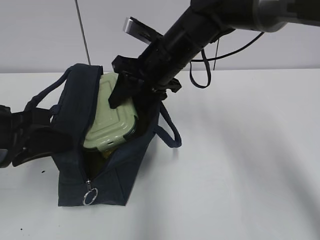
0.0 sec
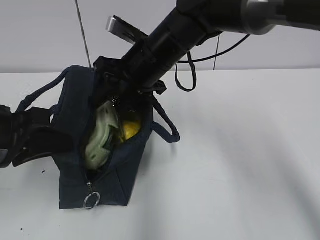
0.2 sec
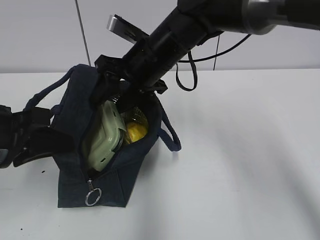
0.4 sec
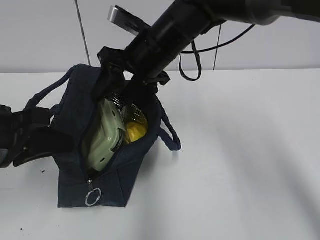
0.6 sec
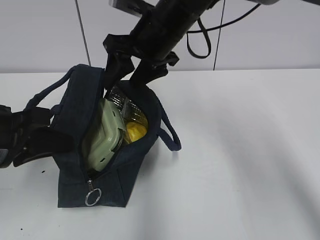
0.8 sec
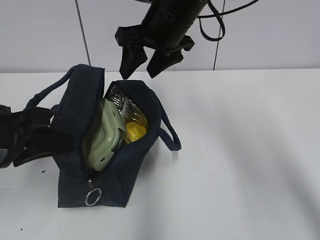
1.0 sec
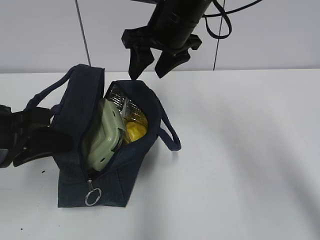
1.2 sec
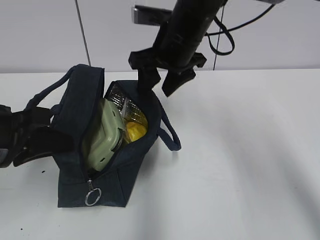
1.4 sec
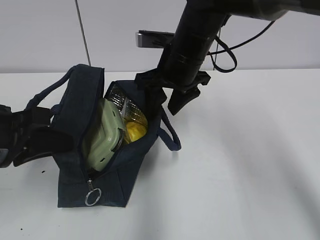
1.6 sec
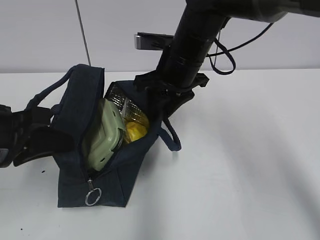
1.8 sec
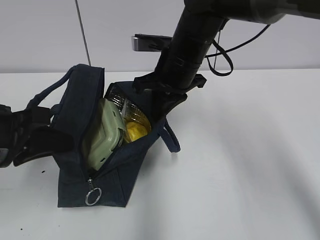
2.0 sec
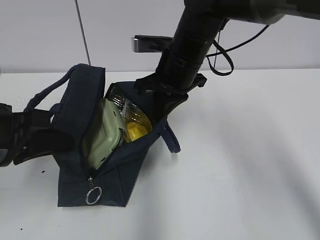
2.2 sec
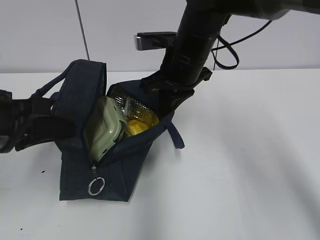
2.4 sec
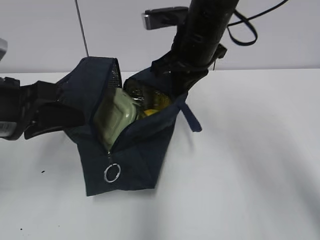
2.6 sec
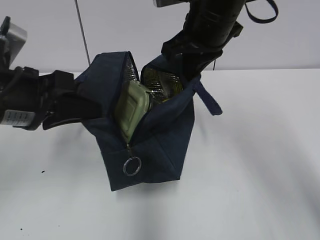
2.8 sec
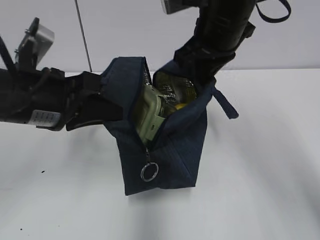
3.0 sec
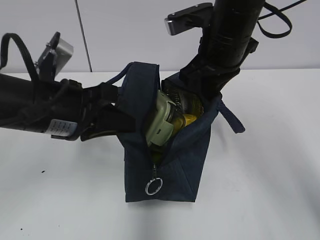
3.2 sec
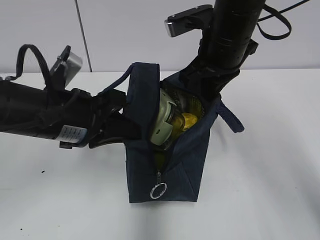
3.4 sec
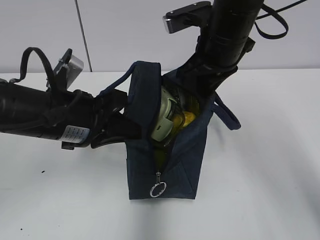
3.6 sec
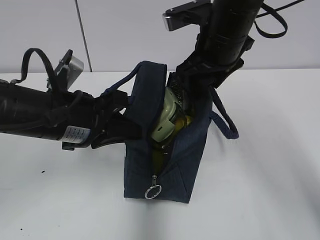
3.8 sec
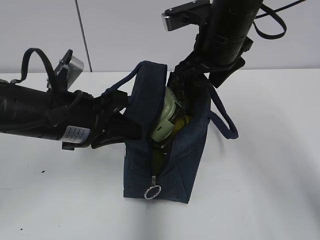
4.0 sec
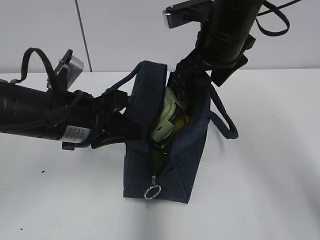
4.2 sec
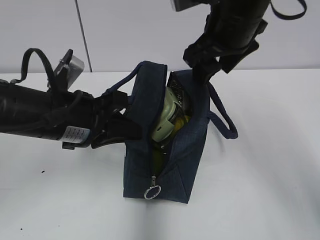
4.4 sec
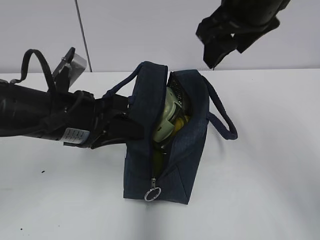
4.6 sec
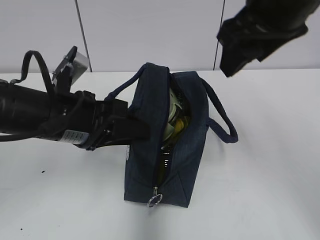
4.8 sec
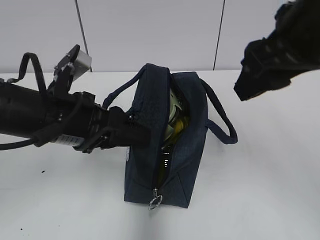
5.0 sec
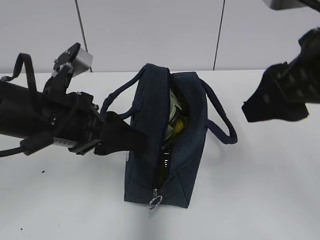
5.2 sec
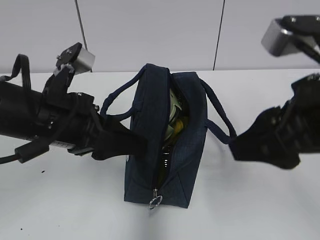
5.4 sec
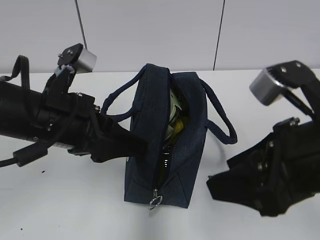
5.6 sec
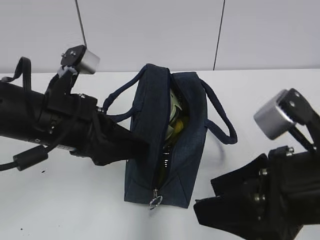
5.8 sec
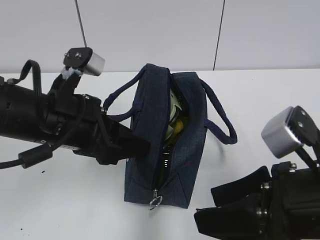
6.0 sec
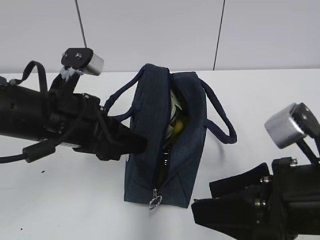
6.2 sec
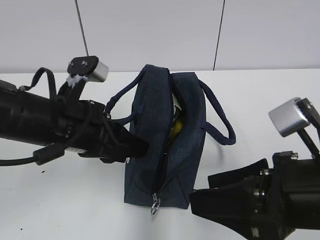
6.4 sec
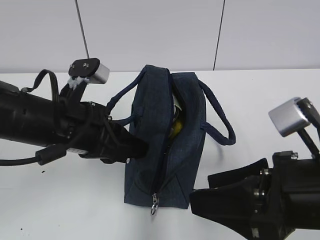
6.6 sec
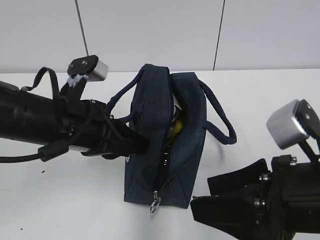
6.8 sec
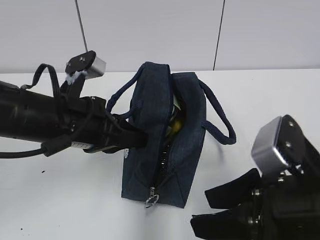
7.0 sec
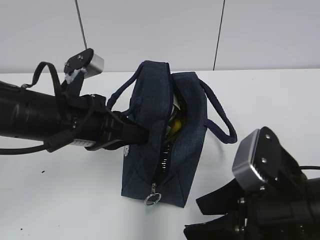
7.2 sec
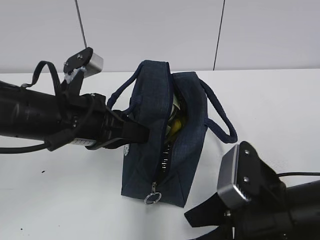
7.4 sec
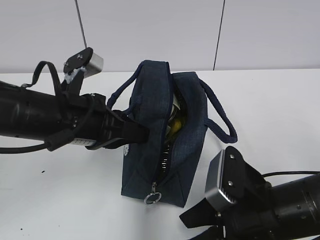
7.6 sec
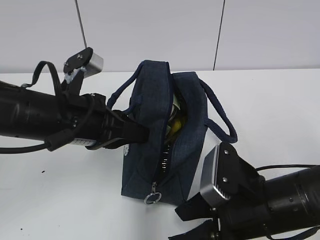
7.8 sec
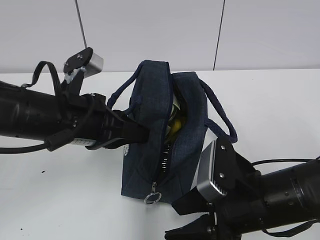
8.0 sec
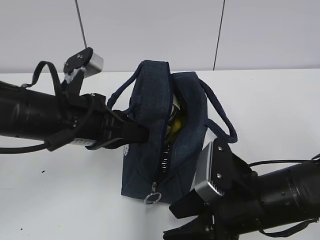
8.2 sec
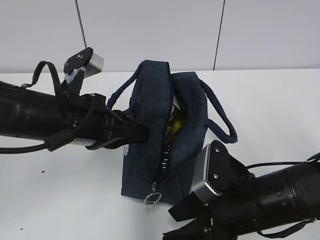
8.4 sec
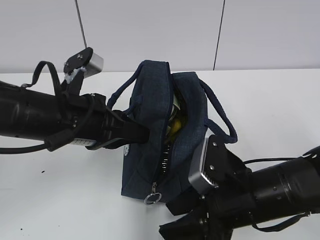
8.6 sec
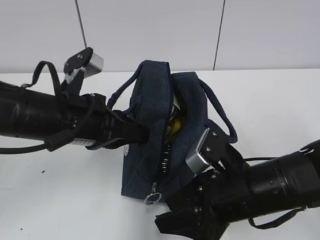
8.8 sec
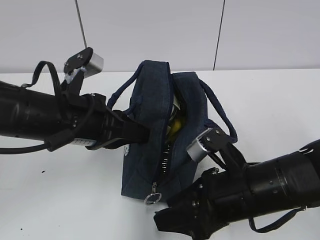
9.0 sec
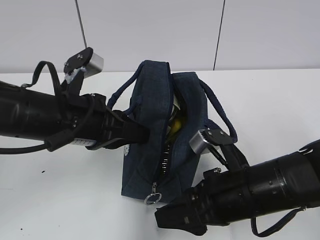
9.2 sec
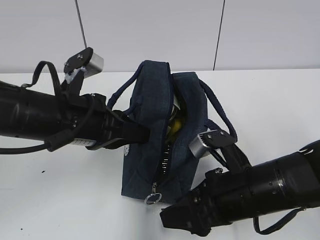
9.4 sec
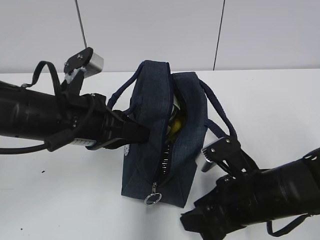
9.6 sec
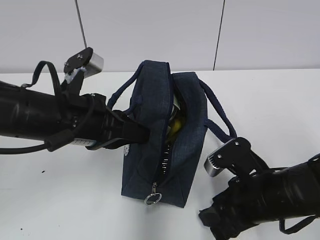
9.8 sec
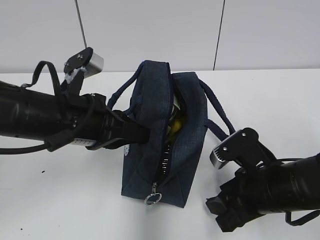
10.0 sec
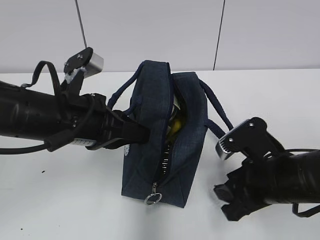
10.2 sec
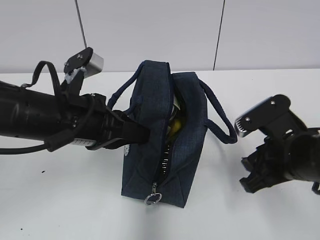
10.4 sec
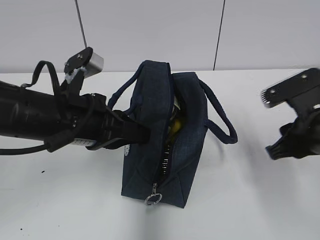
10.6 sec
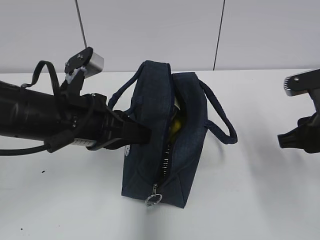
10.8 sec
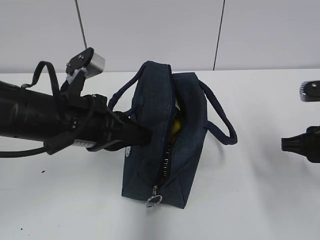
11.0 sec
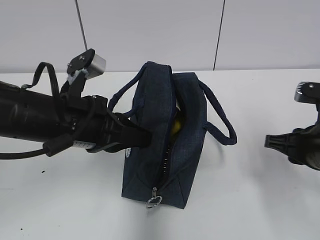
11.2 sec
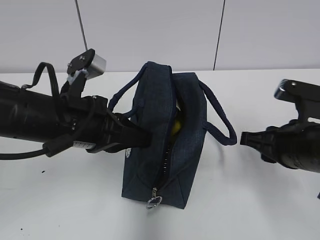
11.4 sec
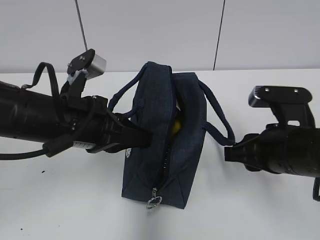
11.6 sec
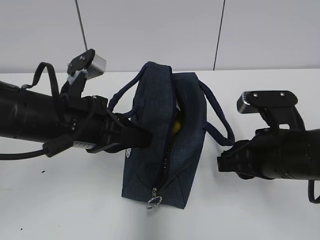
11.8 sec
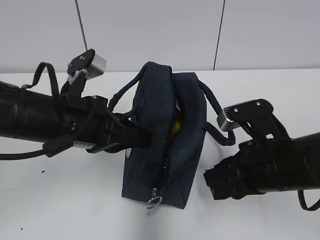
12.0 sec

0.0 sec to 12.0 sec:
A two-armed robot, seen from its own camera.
Step, 0.6 sec to 2.2 sec: Grab the lunch bag with your right hand.
Step, 2.4 sec to 3.6 sec: Move the lunch bag to the right.
1.6 sec to 3.0 sec: The right gripper moves upward, about 5 cm, and closes its fingers. The left gripper goes approximately 5 cm to the right.
3.0 sec to 4.4 sec: The right gripper opens up.
4.4 sec to 6.0 sec: The right gripper is displaced backward and downward by about 25 cm, while the left gripper opens.
6.0 sec to 7.6 sec: The left gripper closes up; the right gripper goes roughly 10 cm downward.
9.0 sec to 10.4 sec: The right gripper is displaced to the right by roughly 5 cm.

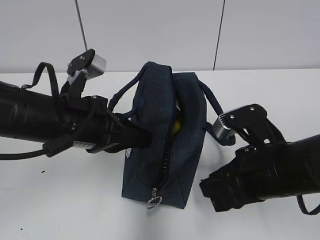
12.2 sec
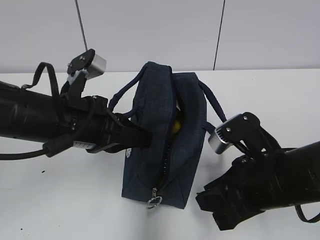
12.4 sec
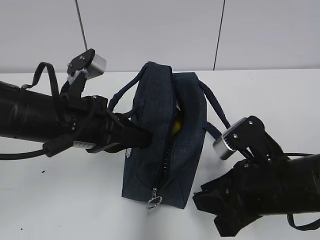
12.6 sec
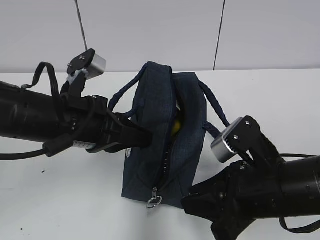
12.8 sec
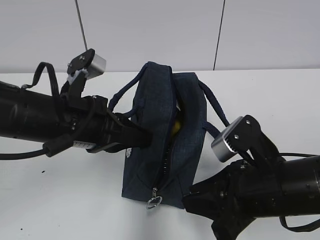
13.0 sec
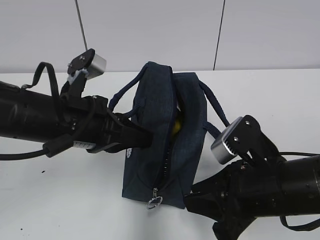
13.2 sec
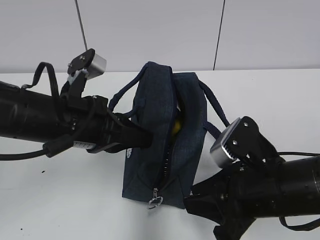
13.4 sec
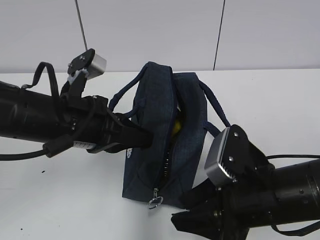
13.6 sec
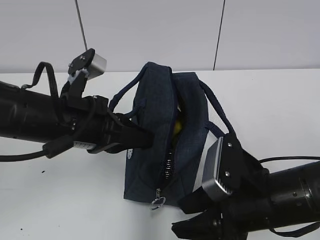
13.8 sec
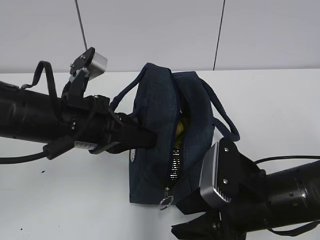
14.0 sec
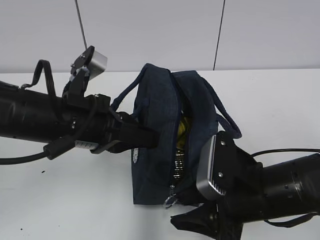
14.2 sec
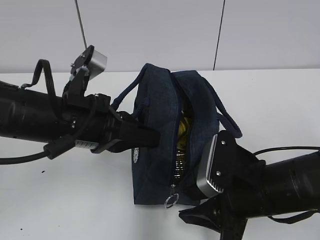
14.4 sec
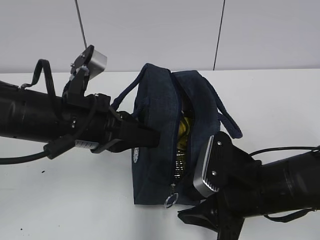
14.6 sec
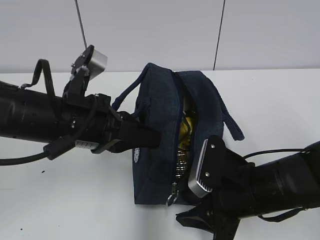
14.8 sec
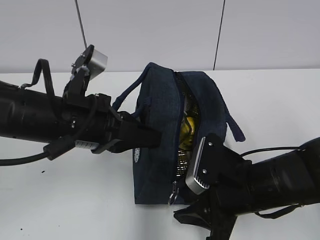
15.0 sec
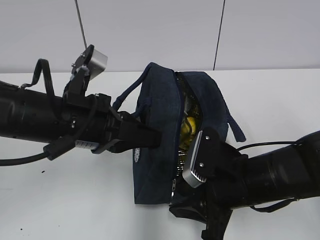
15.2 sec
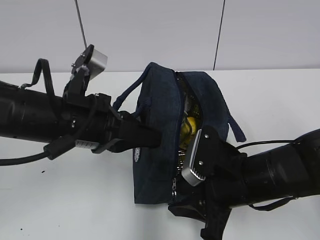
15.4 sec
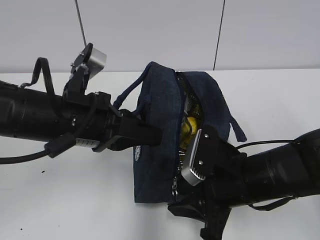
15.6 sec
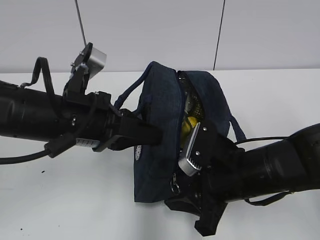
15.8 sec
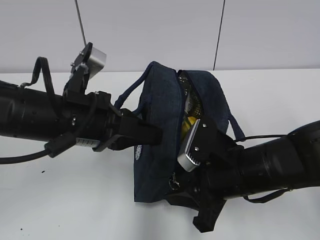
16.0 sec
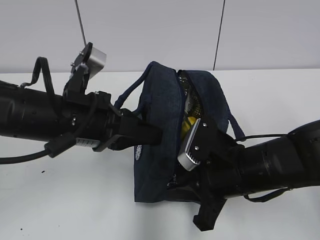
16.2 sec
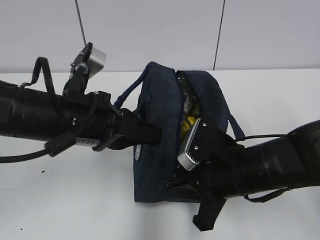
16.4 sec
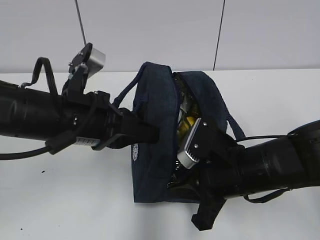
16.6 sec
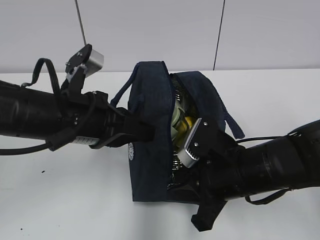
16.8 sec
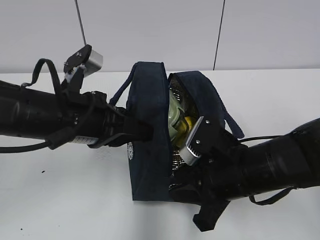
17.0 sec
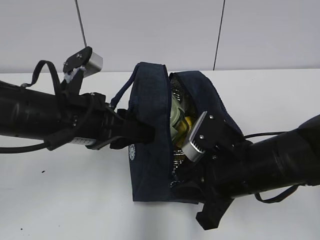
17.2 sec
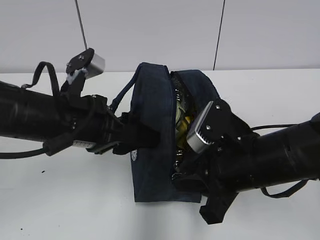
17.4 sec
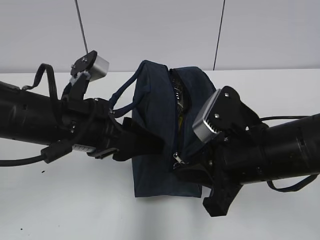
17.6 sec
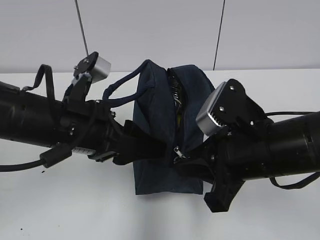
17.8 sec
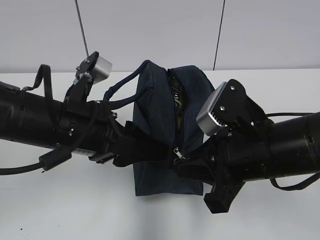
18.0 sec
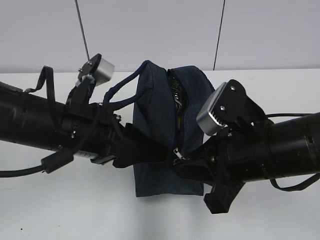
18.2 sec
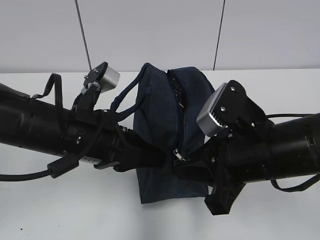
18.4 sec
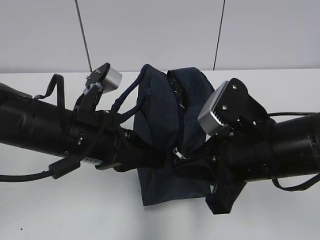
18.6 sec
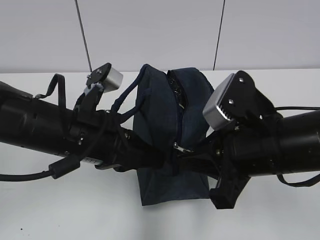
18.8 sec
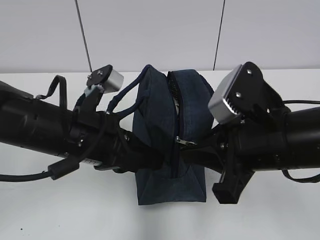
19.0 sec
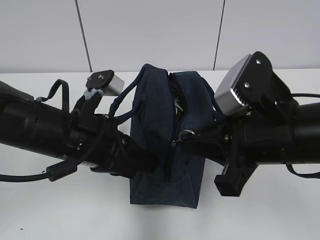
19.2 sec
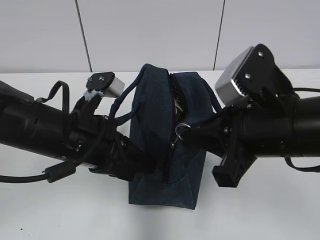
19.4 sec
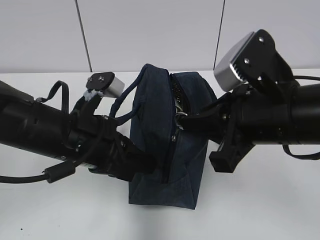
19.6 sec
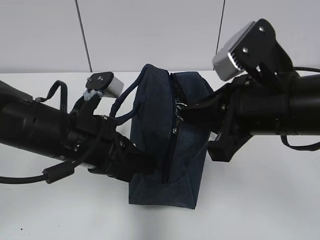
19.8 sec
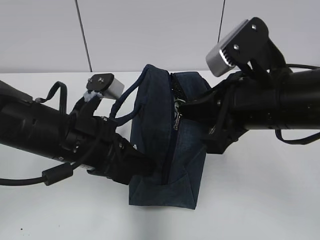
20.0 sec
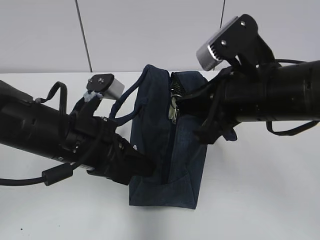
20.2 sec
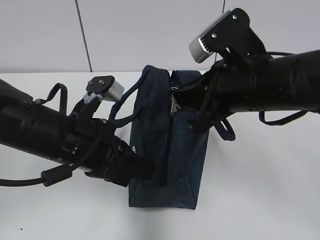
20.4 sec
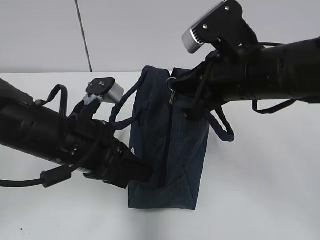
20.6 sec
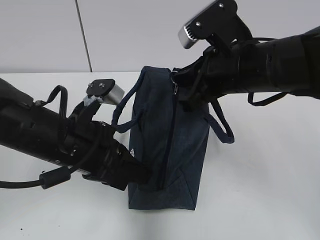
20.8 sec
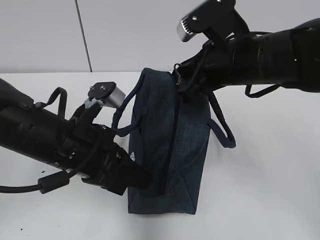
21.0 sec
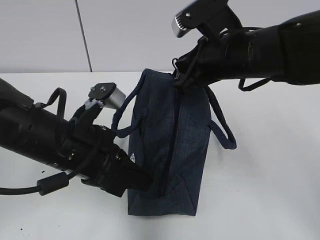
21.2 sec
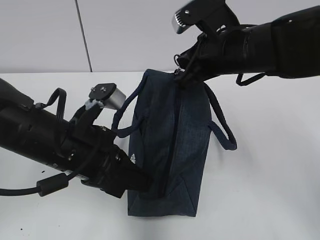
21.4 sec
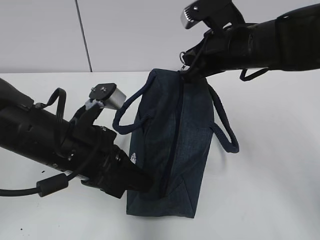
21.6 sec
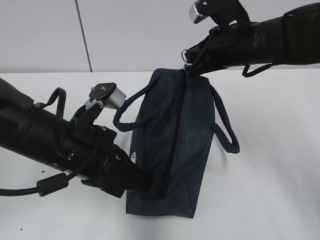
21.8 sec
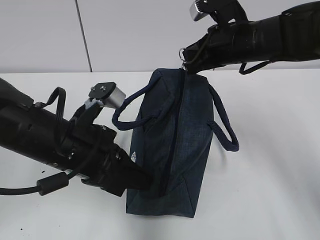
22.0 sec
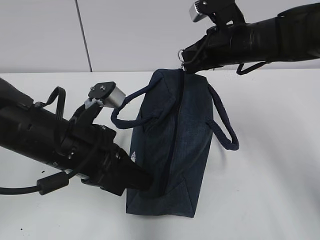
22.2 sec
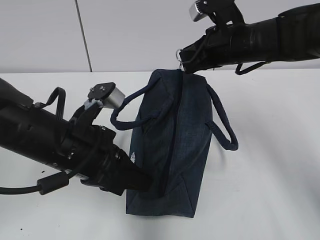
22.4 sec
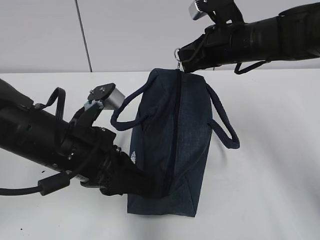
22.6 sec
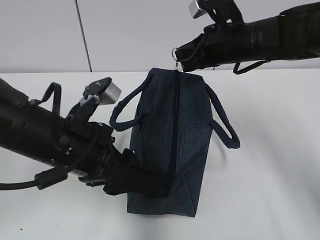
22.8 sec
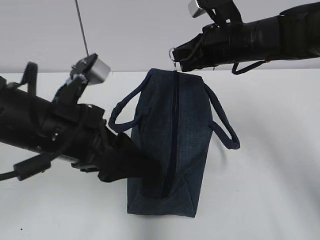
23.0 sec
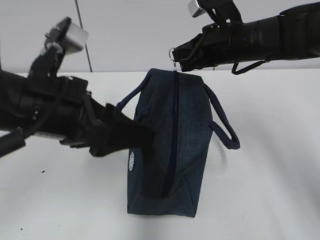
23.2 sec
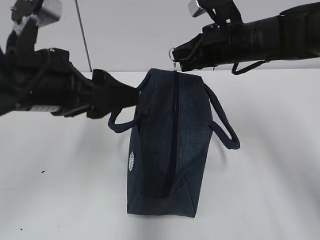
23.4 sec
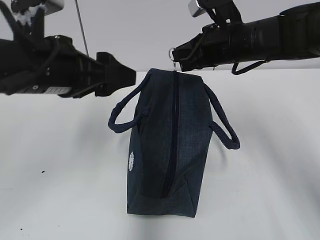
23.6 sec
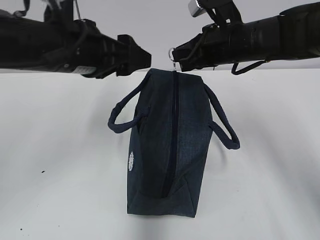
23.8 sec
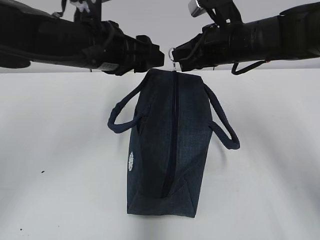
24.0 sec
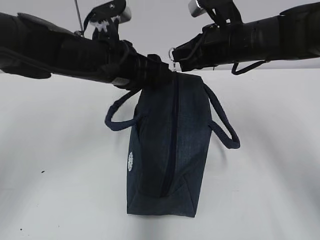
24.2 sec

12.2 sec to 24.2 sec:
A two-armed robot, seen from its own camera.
Step, 12.2 sec to 22.6 sec: Grab the lunch bag with your left hand.
13.8 sec to 15.2 sec: The grippers stay close to where they were, moving slightly.
15.2 sec to 16.6 sec: The right gripper closes up.
16.6 sec to 18.2 sec: The right gripper travels upward by roughly 5 cm, while the left gripper opens.
18.2 sec to 19.8 sec: The left gripper closes its fingers; the right gripper moves upward, approximately 5 cm.
19.8 sec to 21.2 sec: The right gripper goes some 10 cm forward.
21.2 sec to 22.6 sec: The right gripper heads forward, covering approximately 5 cm, while the left gripper opens.
22.6 sec to 24.2 sec: The left gripper moves forward, some 10 cm, and opens.
